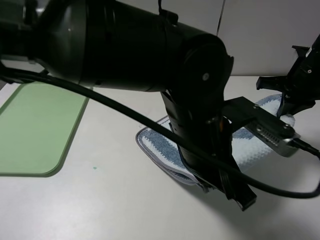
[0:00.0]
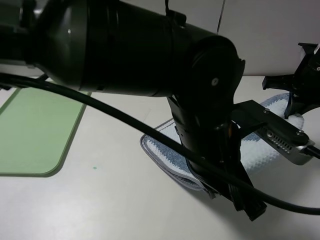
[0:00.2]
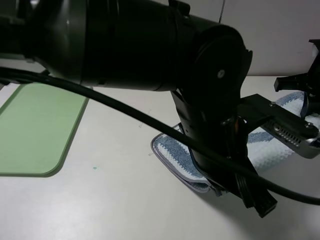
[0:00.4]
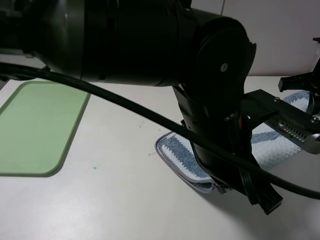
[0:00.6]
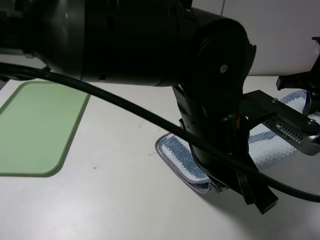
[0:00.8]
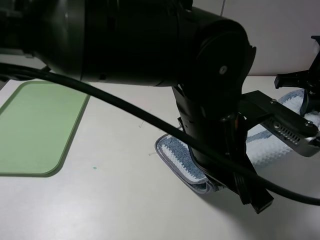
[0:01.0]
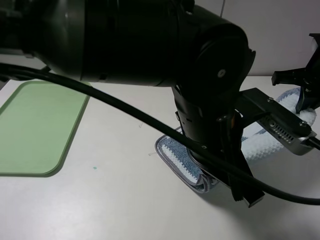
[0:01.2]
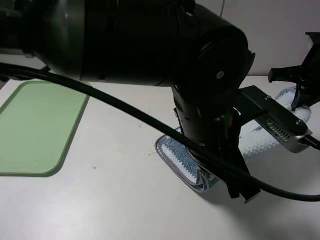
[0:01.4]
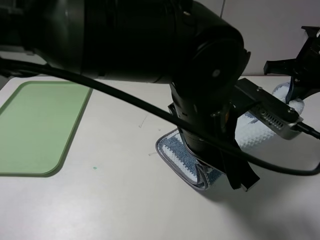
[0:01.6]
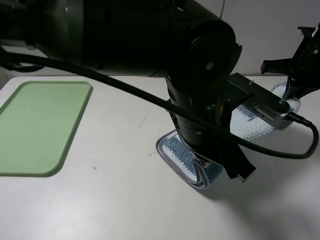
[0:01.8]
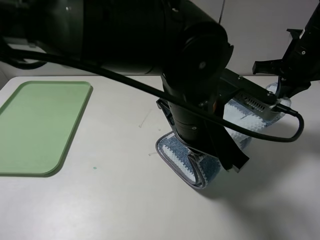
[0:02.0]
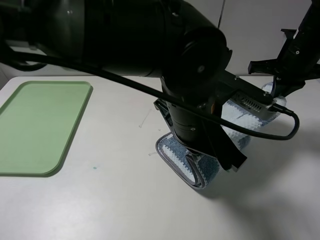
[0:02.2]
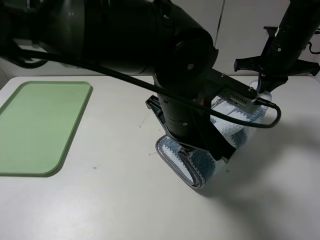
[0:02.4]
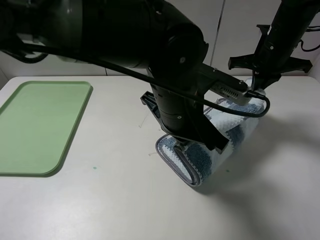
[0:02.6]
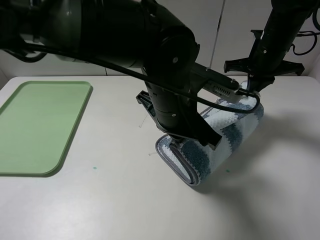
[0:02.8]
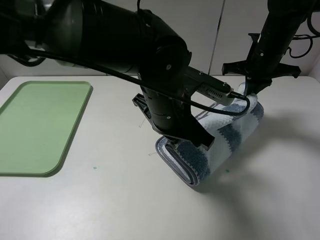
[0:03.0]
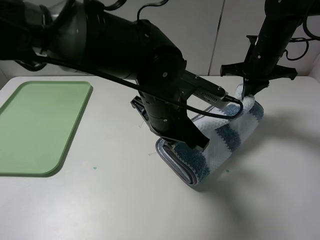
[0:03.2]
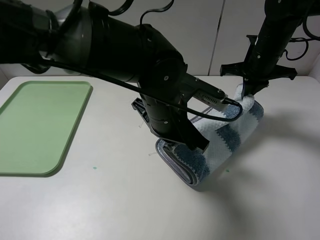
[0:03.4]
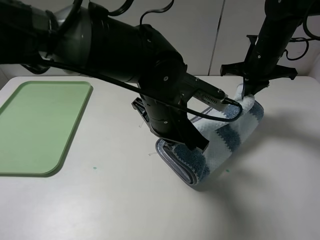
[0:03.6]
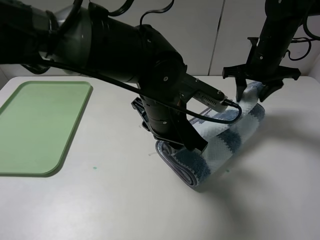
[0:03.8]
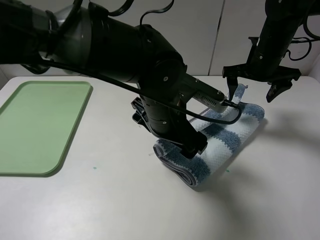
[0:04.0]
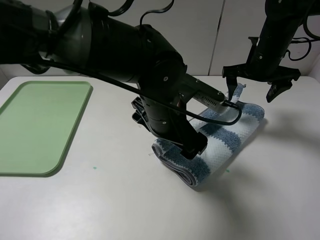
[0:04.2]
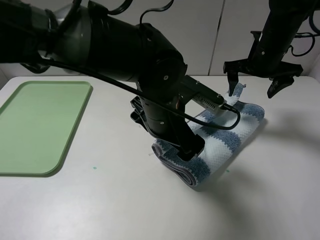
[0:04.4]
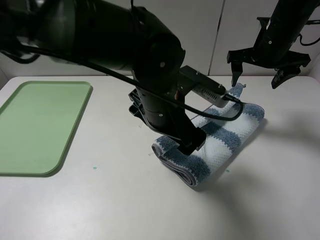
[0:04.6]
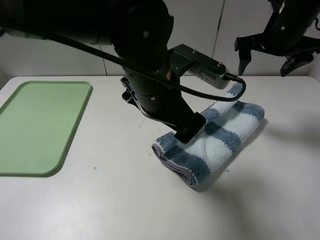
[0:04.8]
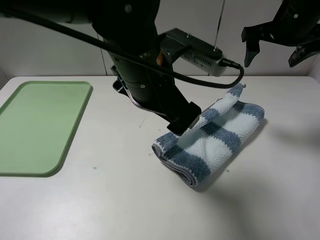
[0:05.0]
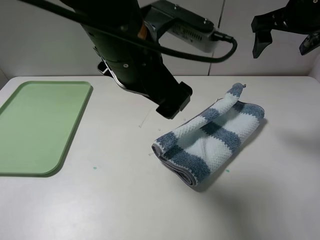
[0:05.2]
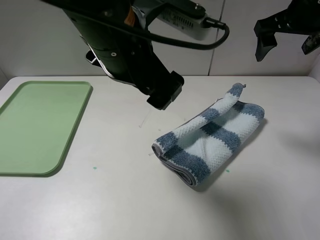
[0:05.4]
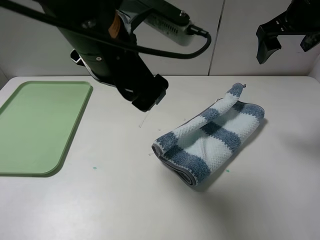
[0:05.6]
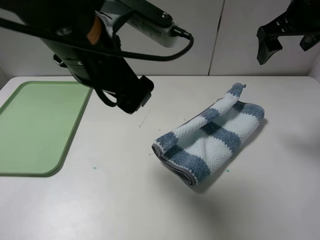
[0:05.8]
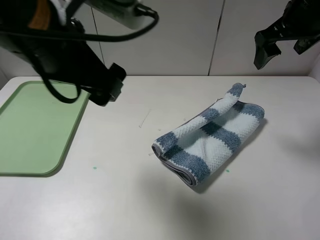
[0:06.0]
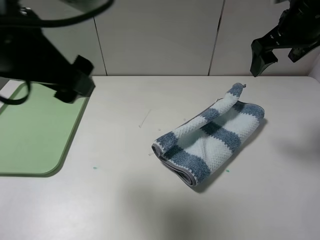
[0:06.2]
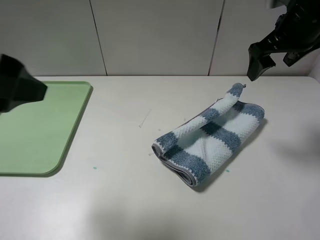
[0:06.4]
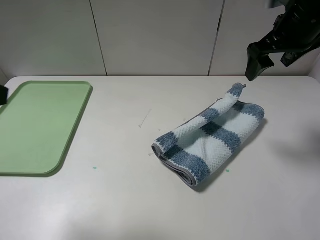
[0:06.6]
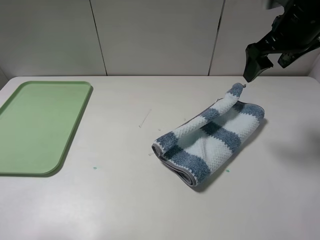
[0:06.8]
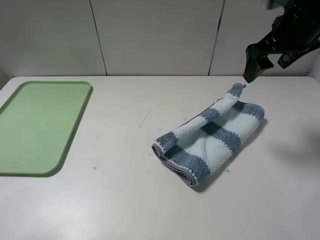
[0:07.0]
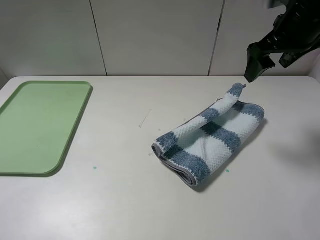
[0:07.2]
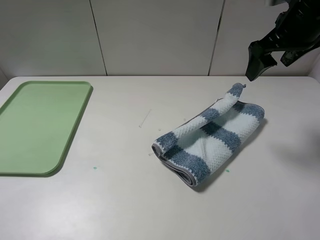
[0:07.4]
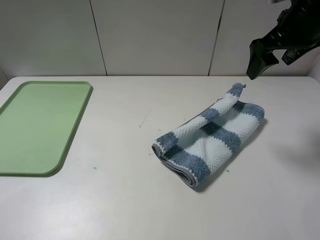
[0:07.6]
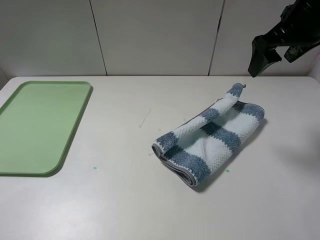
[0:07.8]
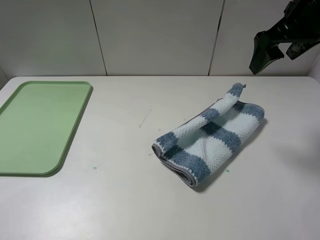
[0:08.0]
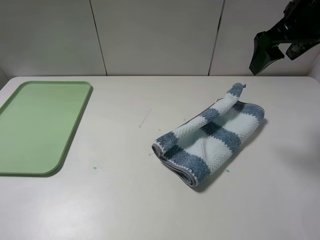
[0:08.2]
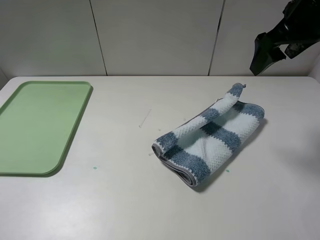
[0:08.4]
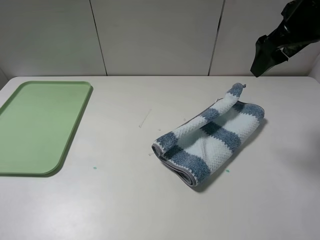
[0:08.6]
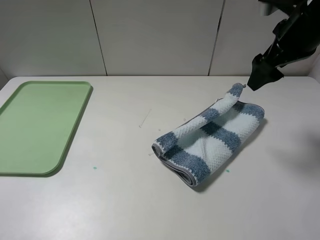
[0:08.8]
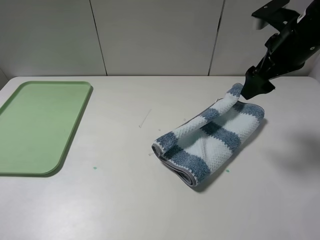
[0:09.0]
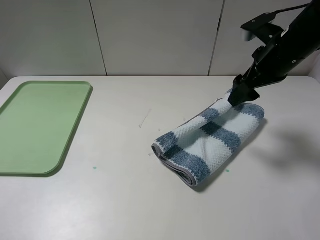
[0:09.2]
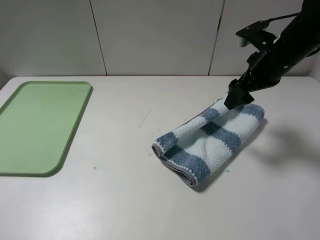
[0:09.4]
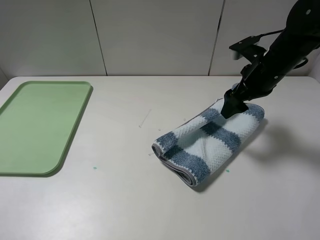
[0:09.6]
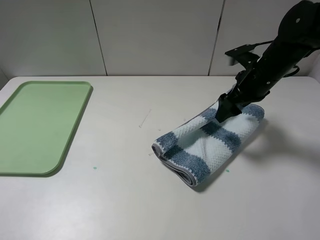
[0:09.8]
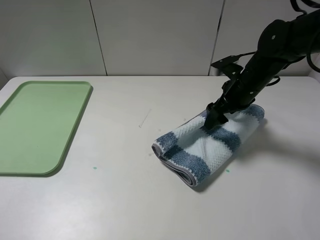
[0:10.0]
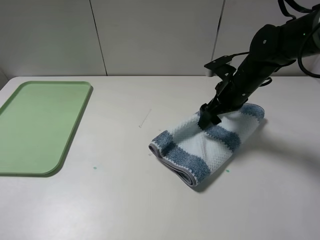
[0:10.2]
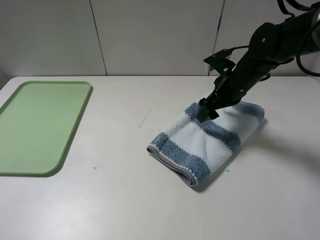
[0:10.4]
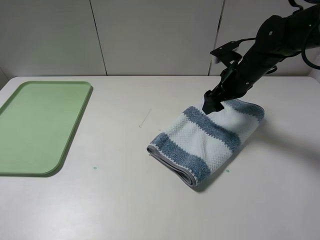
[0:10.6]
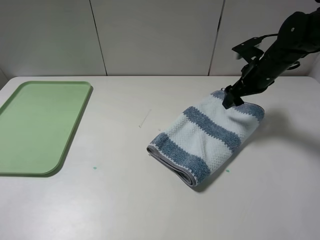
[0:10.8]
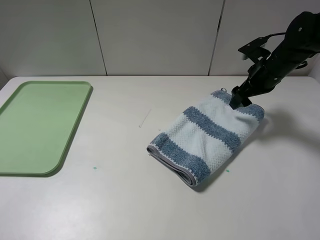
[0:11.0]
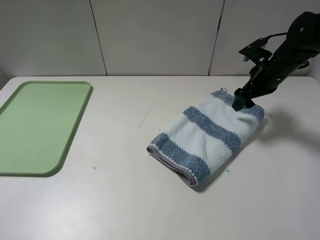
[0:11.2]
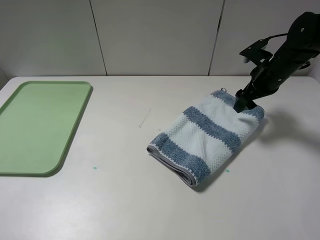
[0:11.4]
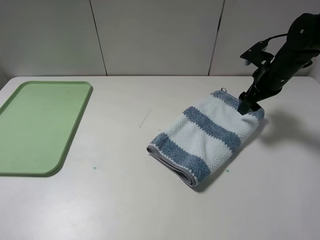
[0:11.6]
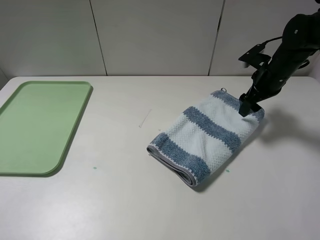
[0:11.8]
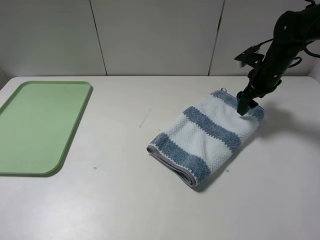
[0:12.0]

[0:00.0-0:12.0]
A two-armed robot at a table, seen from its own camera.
Step, 0:00.0 to 0:04.2: Fold the blue white towel upwards with the left gripper.
0:01.6 to 0:03.0: The right gripper heads forward and to the left, covering about 10 cm, while the left gripper shifts approximately 5 cm forward.
0:03.0 to 0:04.4: The left gripper opens, while the right gripper opens.
0:04.4 to 0:06.0: The right gripper is displaced upward by approximately 10 cm. Meanwhile the left gripper is displaced upward and to the left by about 20 cm.
0:06.0 to 0:07.6: The left gripper goes approximately 25 cm to the left and backward.
0:09.0 to 0:10.4: The right gripper shifts roughly 10 cm downward and to the left.
0:10.4 to 0:12.0: The right gripper shifts roughly 10 cm to the right and forward.

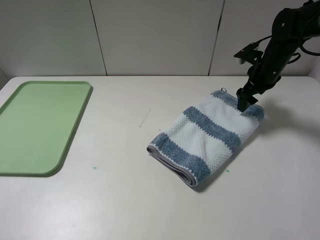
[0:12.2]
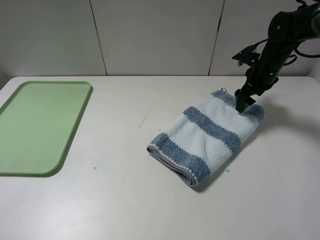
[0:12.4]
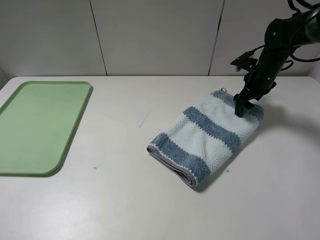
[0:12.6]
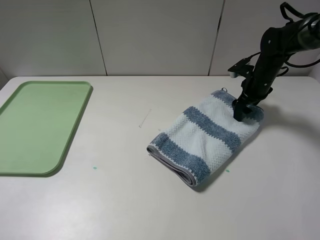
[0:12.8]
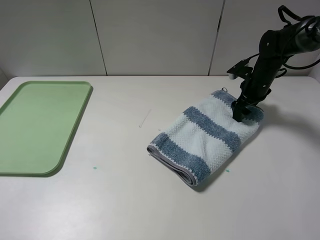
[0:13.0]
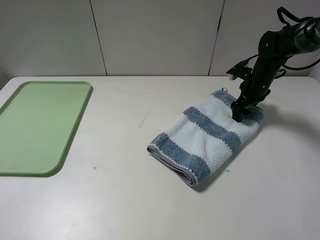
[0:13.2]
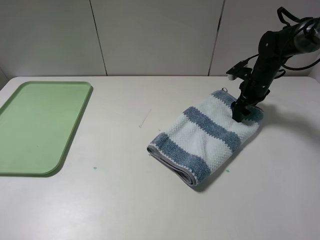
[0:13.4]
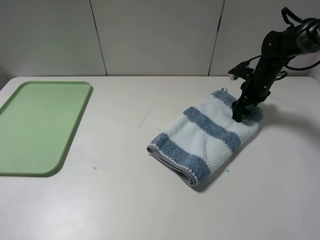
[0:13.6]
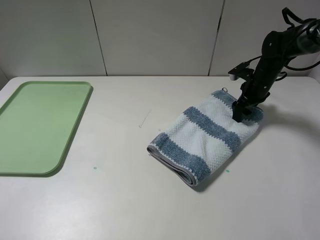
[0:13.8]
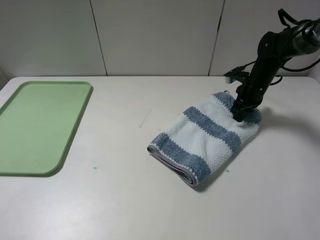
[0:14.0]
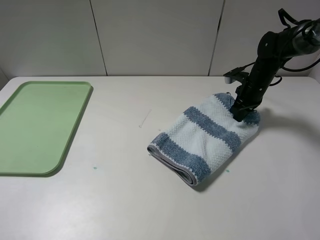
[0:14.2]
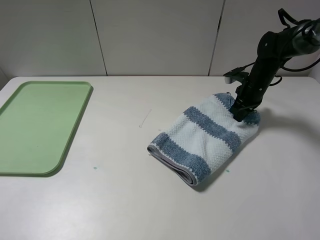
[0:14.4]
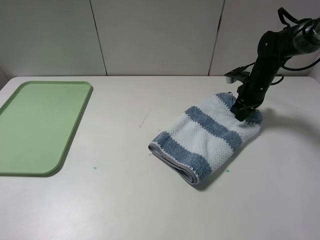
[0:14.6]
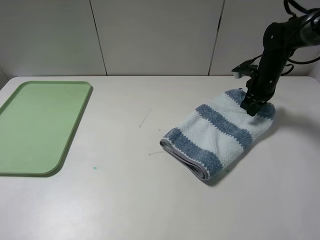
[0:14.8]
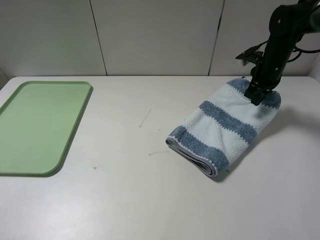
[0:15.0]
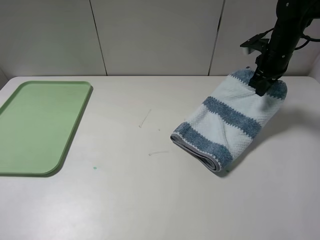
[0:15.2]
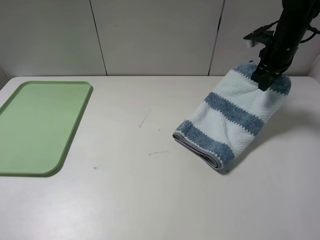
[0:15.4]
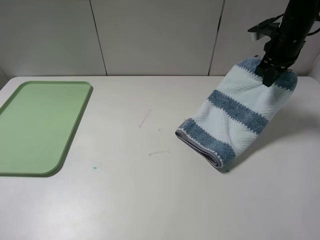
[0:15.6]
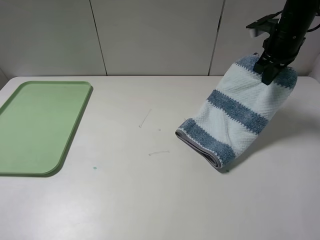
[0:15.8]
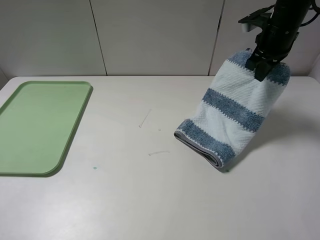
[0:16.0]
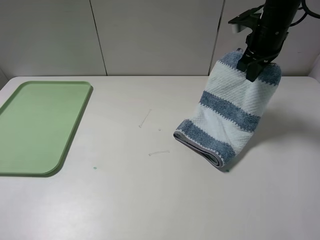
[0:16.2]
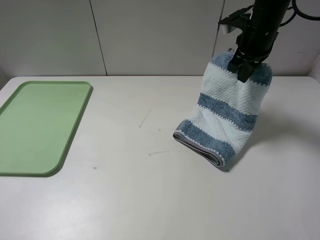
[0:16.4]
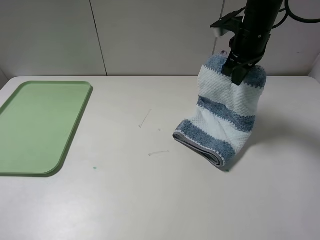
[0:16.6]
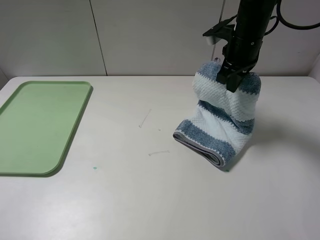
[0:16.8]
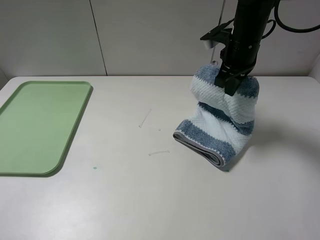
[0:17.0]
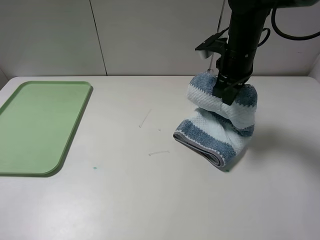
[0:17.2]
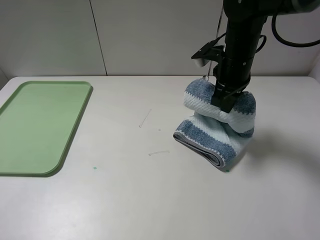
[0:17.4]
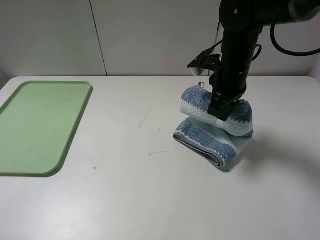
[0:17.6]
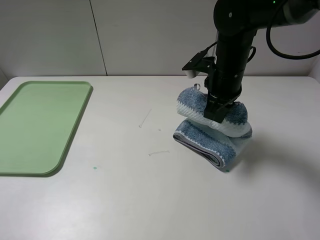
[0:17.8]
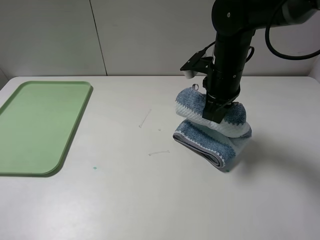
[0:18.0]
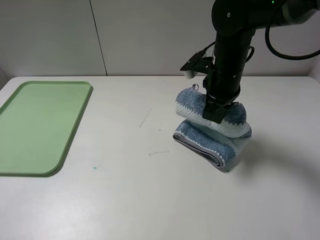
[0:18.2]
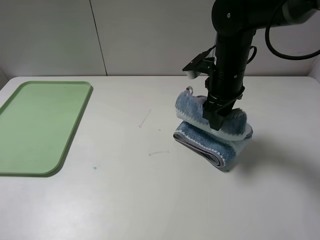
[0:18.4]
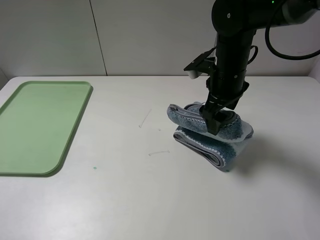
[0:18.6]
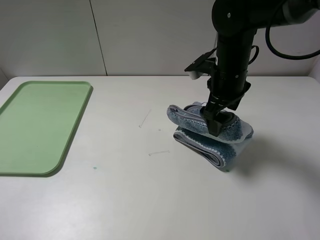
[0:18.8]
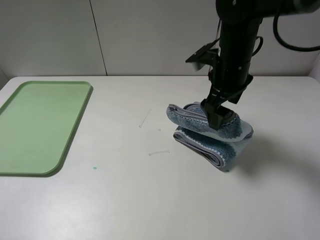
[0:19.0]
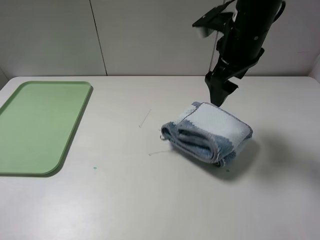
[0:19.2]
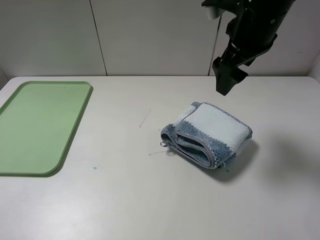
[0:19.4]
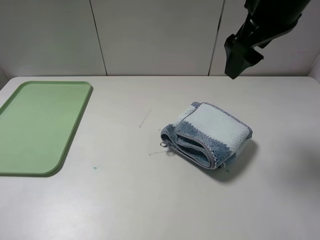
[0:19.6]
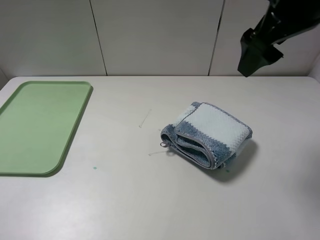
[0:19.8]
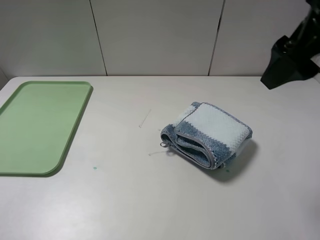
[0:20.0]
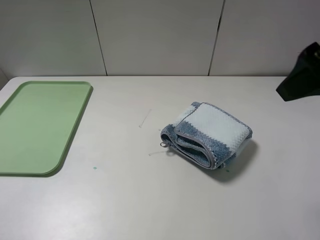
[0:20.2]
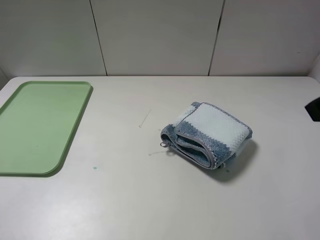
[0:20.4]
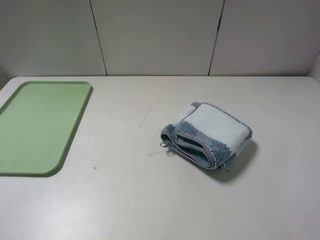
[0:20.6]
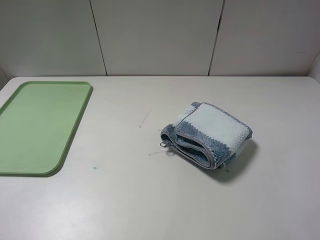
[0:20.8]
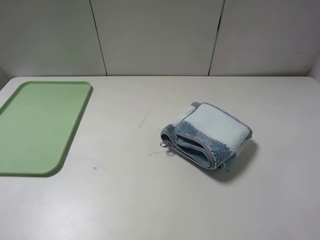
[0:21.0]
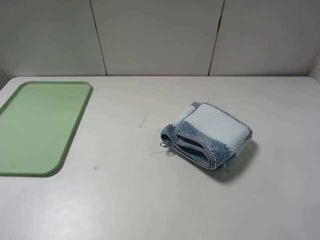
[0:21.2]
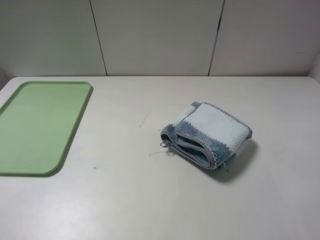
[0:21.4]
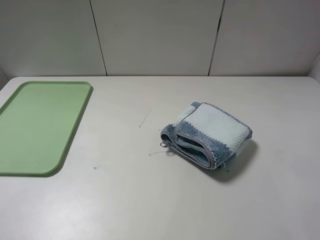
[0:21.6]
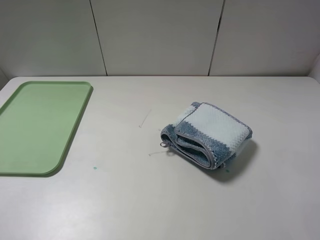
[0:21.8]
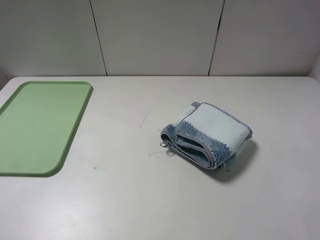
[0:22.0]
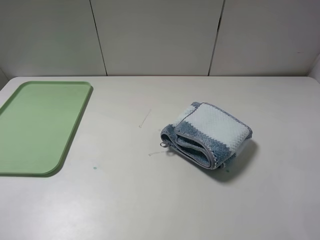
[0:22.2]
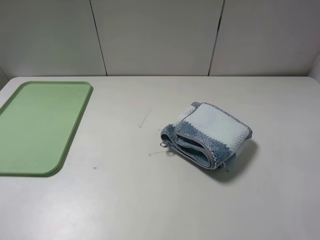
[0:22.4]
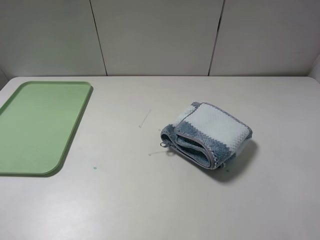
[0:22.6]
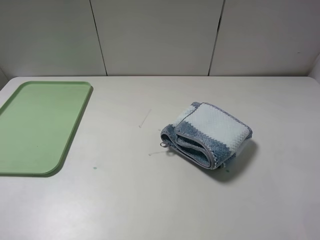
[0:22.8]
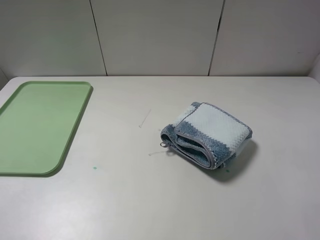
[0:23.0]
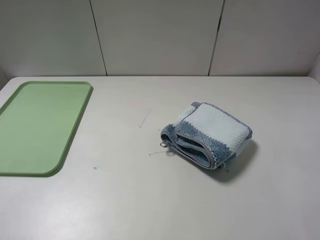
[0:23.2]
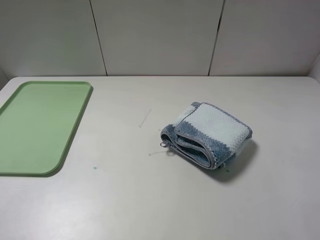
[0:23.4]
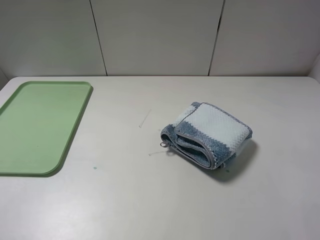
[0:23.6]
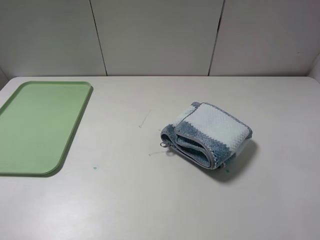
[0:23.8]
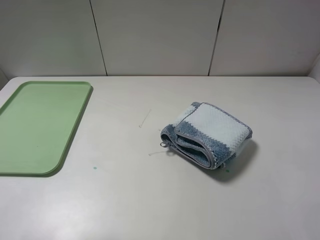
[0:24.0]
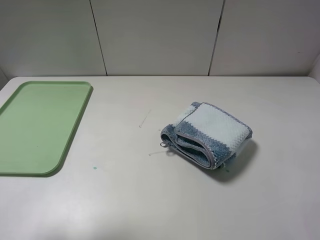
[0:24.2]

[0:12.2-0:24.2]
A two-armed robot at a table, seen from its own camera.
Step, 0:12.2 to 0:14.2: Grasp the blue white towel with the right gripper.
Step, 0:14.4 to 0:19.2: Fold the blue white towel from right to left with right gripper.
0:12.2 to 0:13.8: The right gripper is displaced downward by some 5 cm.
0:13.8 to 0:15.2: The right gripper travels upward by approximately 10 cm, and closes.
0:15.2 to 0:16.6: The right gripper travels to the left and upward by approximately 10 cm.
0:16.6 to 0:18.2: The right gripper is displaced backward and to the left by about 10 cm.
0:18.2 to 0:19.8: The right gripper shifts some 20 cm upward and backward, and opens.
0:19.8 to 0:21.2: The right gripper travels backward and to the right by some 30 cm.
0:22.6 to 0:24.2: The left gripper shifts some 10 cm forward and upward.
